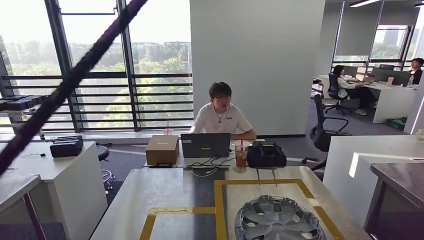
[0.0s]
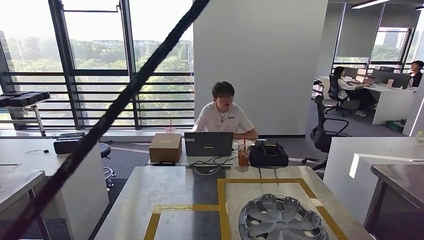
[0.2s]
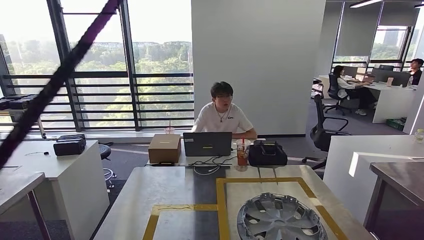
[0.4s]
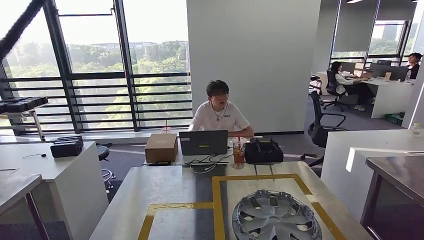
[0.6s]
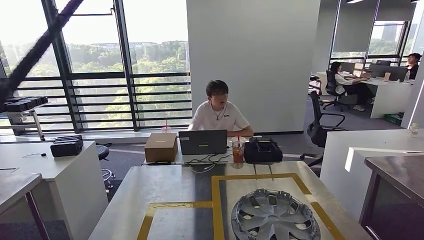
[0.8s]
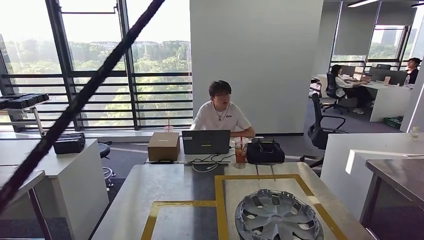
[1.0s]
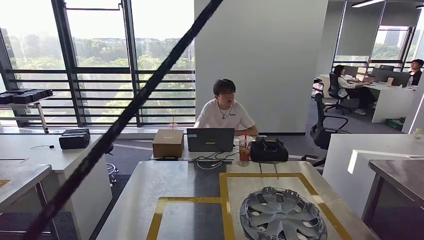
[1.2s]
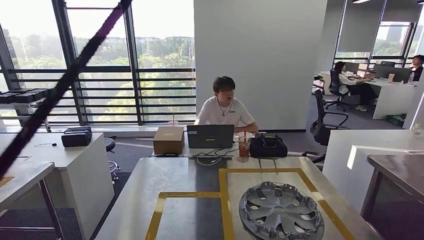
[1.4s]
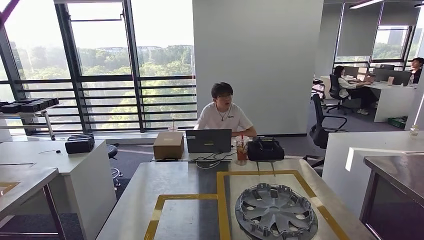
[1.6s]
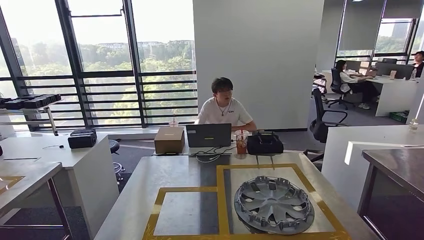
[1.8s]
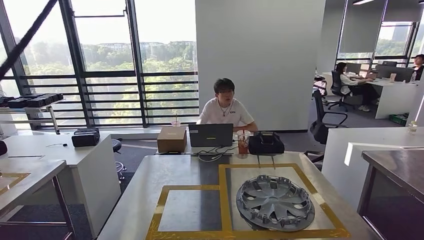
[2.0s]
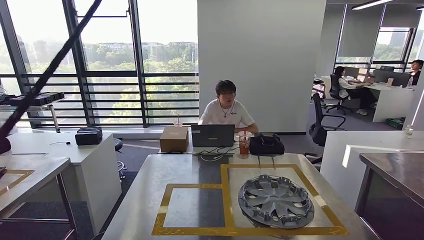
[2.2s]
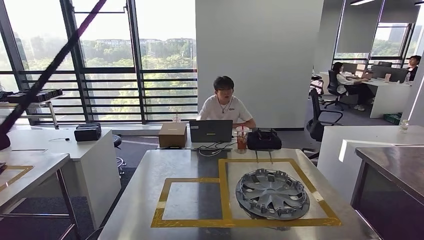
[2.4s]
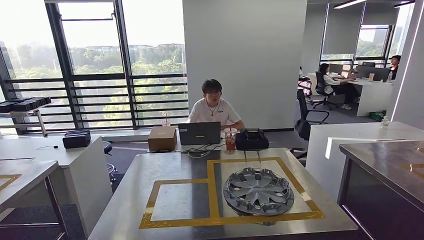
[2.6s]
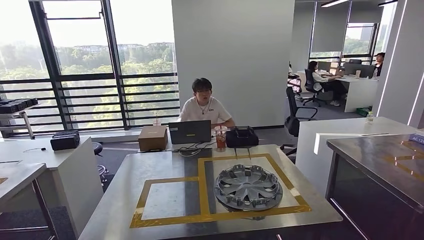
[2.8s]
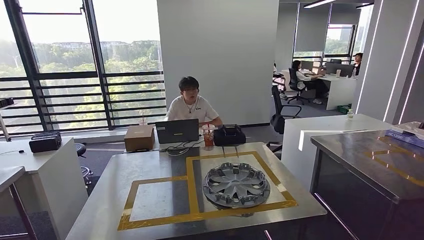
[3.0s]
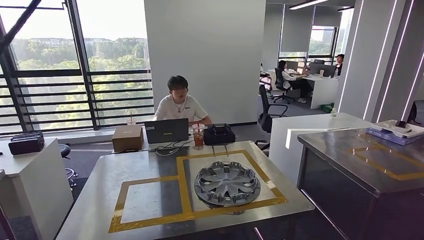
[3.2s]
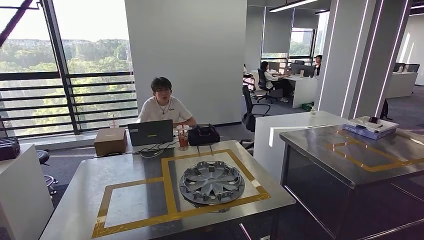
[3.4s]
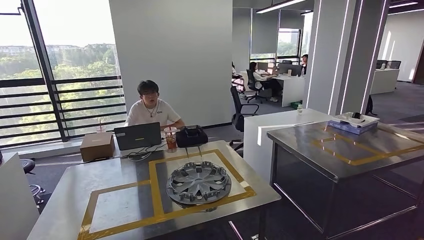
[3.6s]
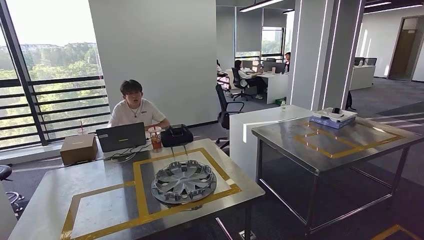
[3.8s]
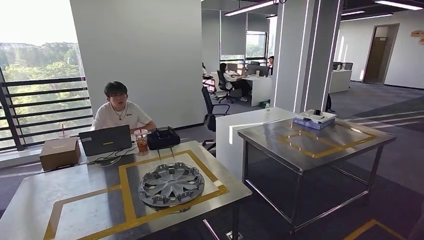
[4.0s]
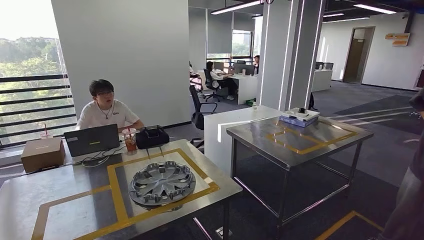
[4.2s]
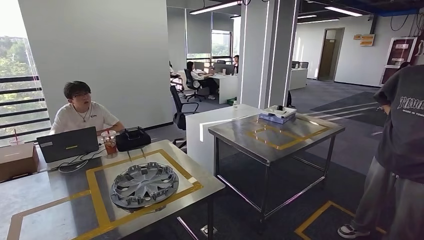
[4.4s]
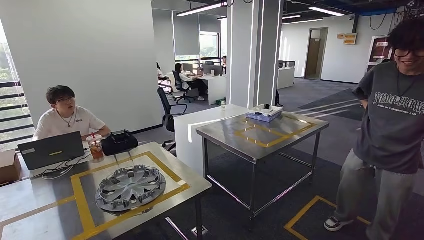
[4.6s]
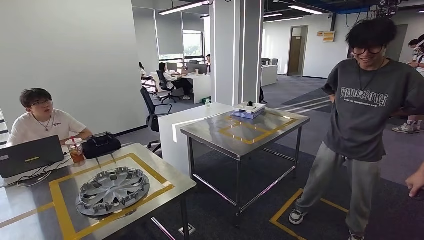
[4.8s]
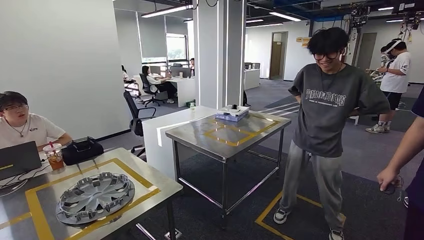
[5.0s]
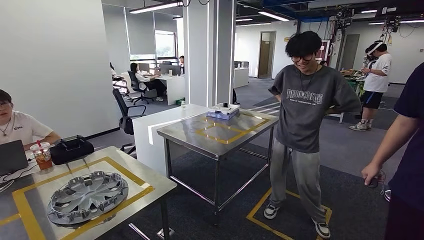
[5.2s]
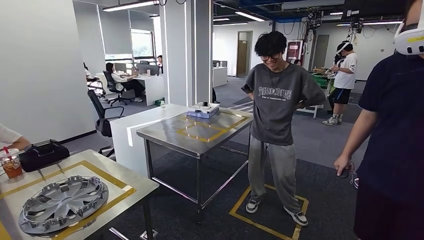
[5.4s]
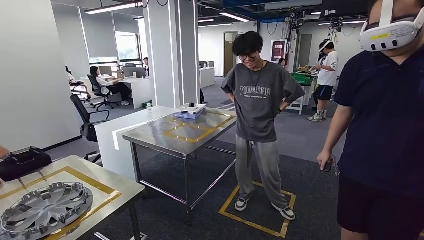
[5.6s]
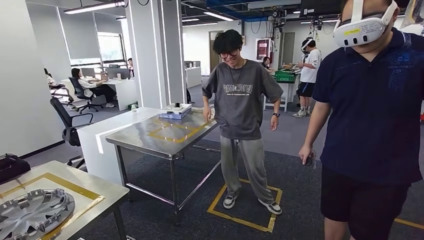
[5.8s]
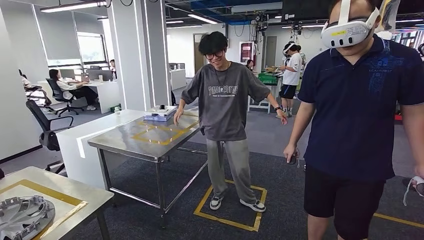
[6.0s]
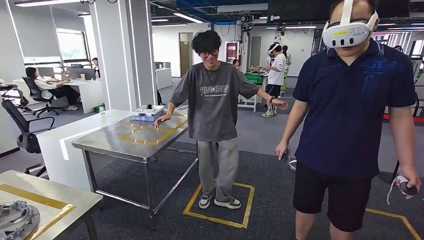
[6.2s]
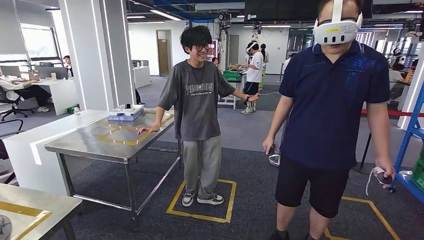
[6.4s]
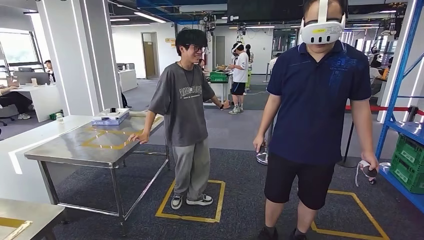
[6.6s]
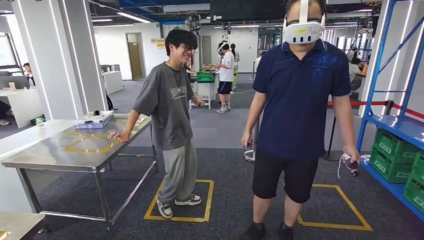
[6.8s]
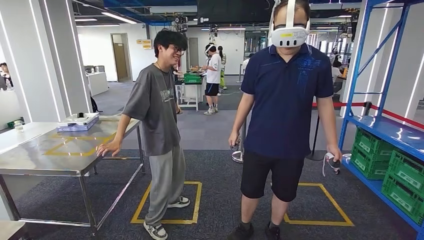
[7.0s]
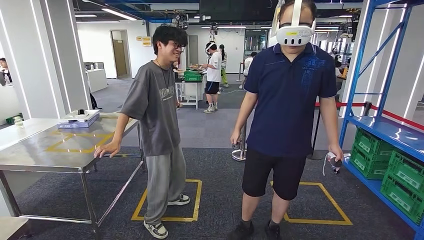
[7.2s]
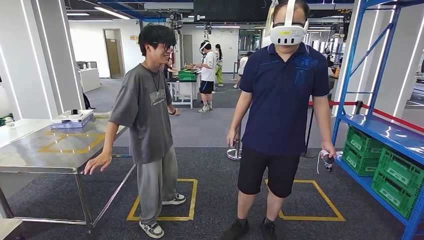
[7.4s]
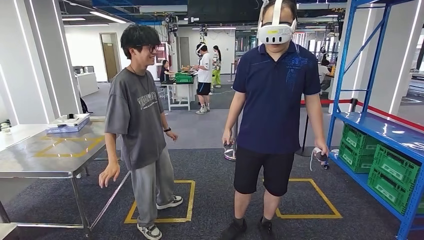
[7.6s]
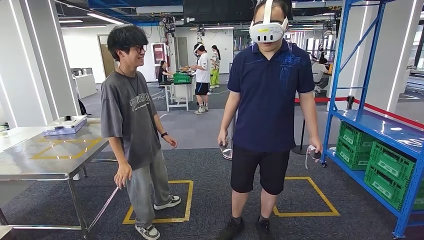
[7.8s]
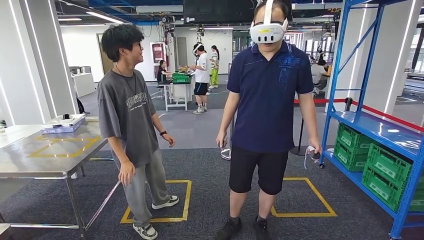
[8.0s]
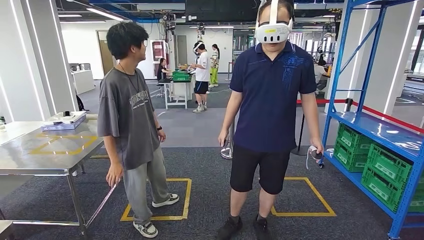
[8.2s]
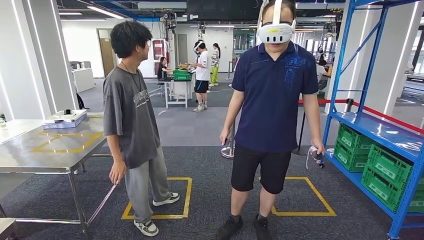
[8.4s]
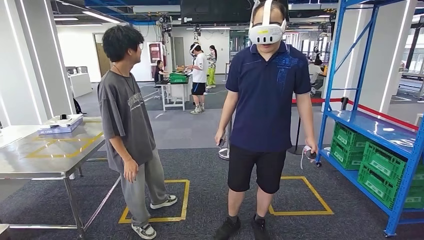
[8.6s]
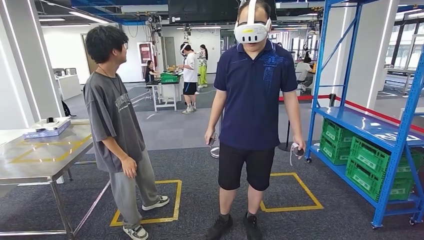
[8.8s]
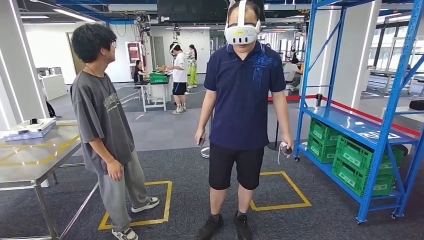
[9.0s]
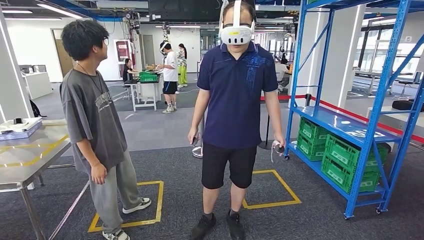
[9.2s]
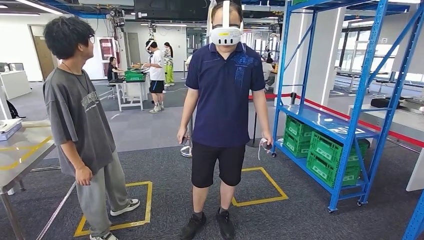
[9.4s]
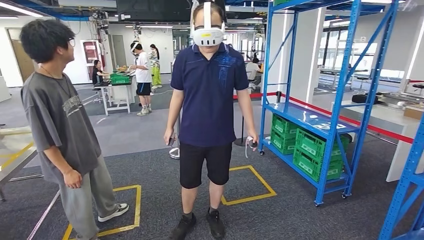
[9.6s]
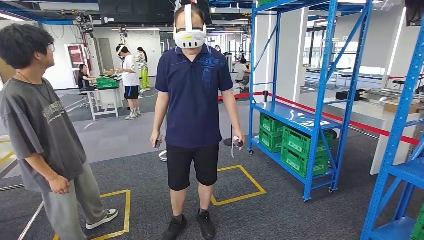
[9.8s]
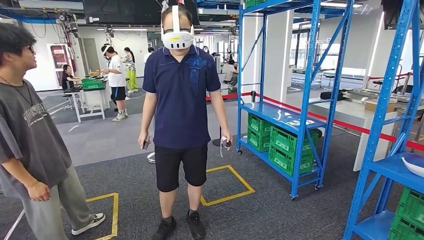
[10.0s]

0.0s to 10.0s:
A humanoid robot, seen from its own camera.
Step, 0.0s to 10.0s: Move to the initial position of the workbench.
